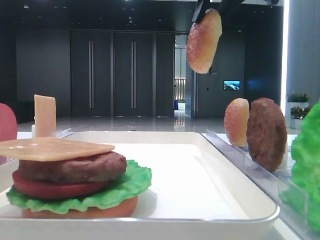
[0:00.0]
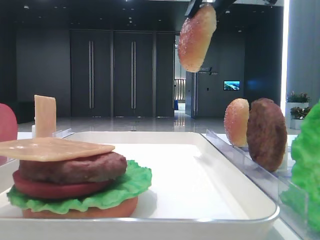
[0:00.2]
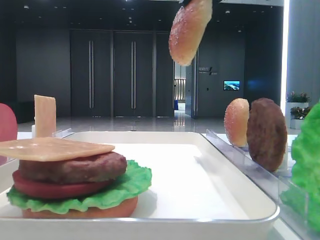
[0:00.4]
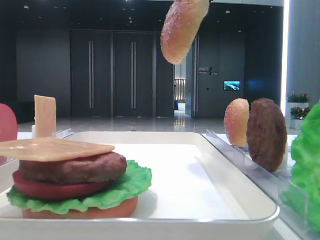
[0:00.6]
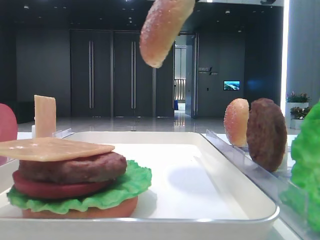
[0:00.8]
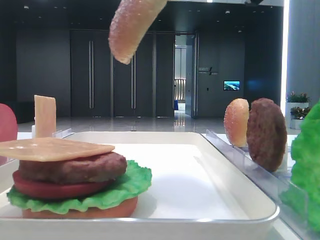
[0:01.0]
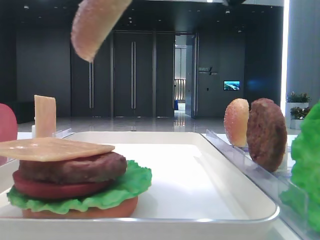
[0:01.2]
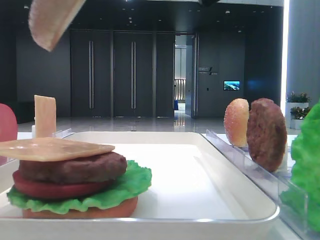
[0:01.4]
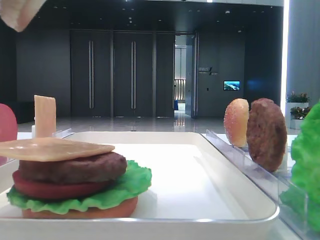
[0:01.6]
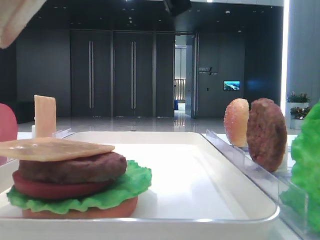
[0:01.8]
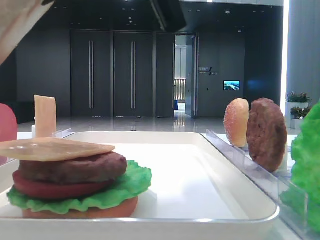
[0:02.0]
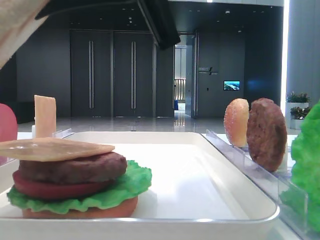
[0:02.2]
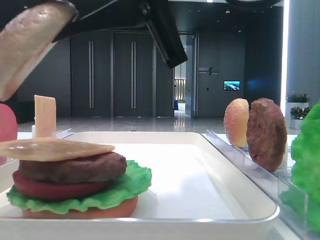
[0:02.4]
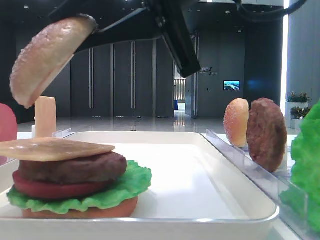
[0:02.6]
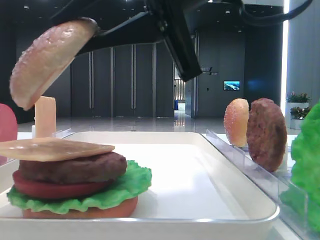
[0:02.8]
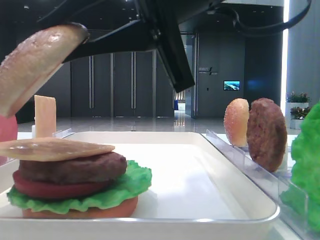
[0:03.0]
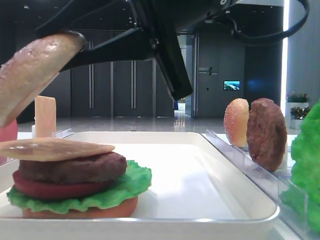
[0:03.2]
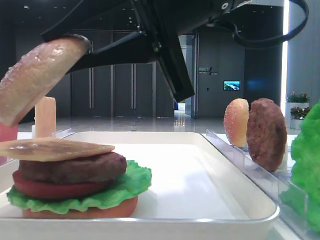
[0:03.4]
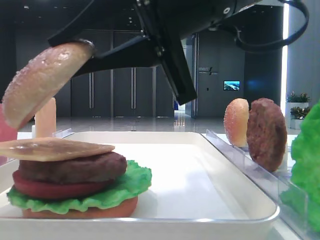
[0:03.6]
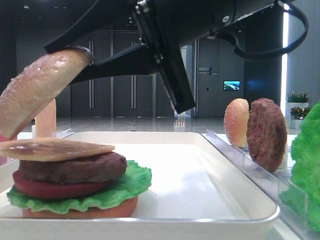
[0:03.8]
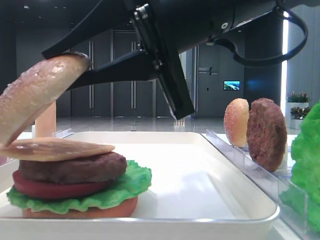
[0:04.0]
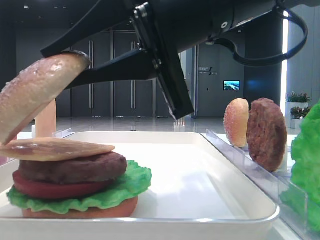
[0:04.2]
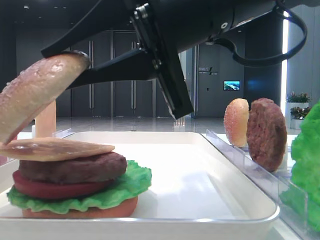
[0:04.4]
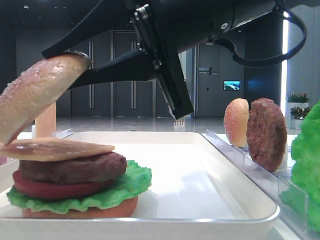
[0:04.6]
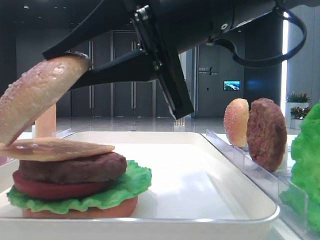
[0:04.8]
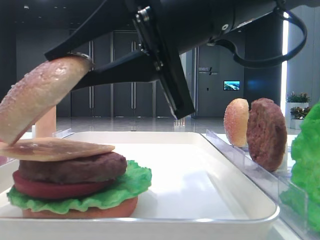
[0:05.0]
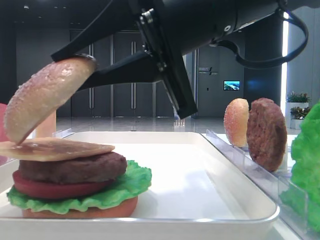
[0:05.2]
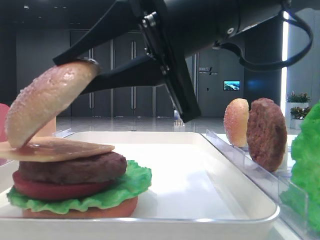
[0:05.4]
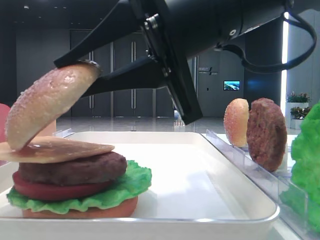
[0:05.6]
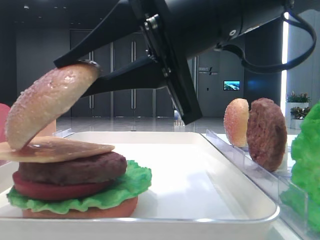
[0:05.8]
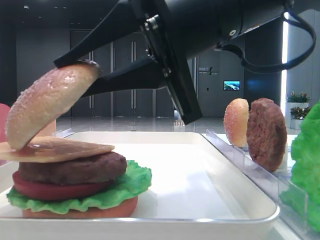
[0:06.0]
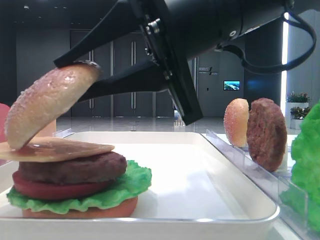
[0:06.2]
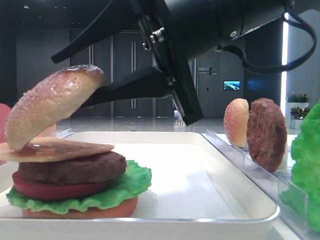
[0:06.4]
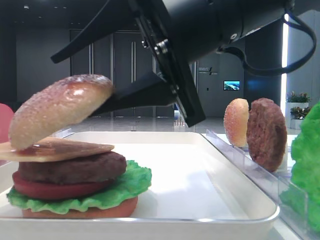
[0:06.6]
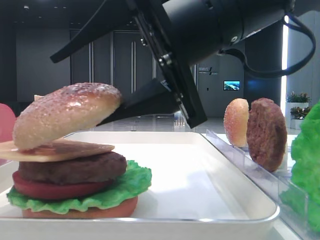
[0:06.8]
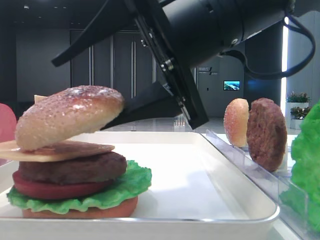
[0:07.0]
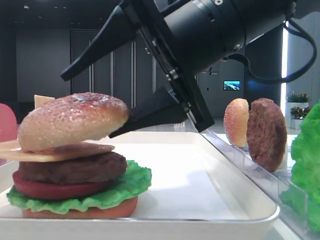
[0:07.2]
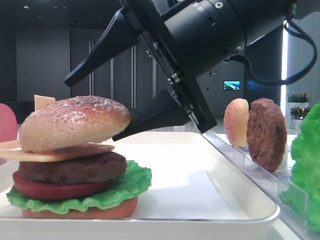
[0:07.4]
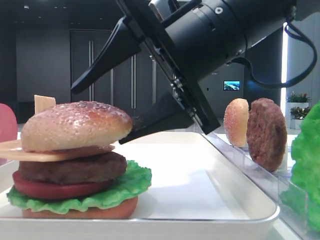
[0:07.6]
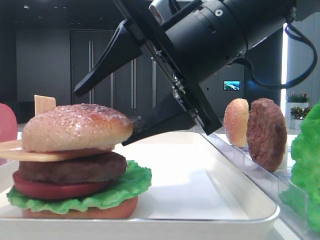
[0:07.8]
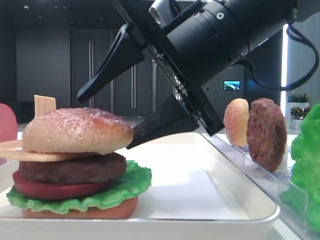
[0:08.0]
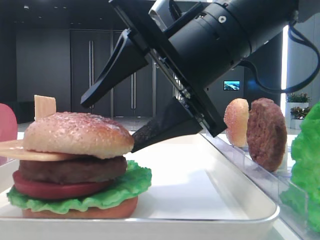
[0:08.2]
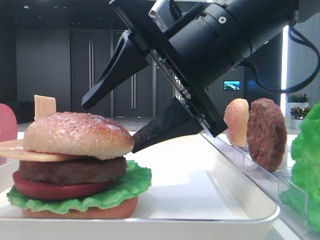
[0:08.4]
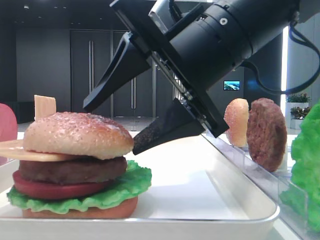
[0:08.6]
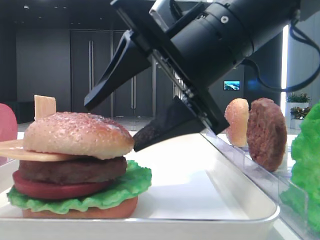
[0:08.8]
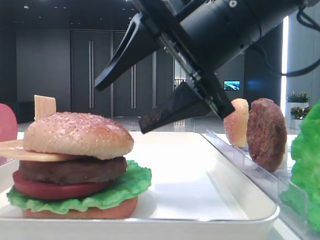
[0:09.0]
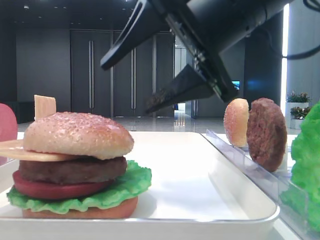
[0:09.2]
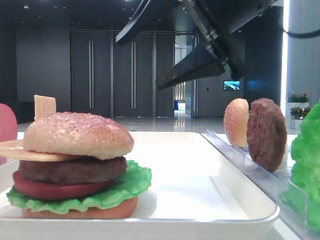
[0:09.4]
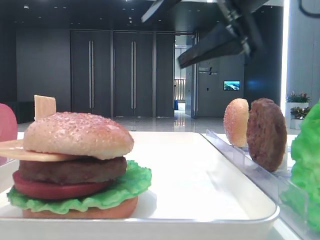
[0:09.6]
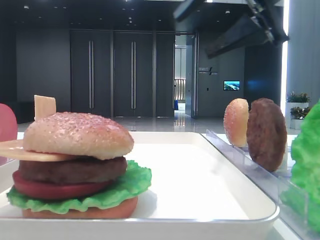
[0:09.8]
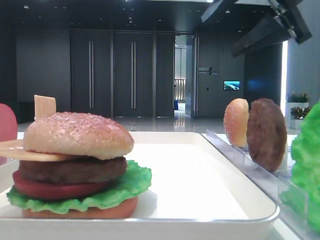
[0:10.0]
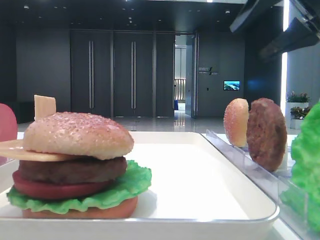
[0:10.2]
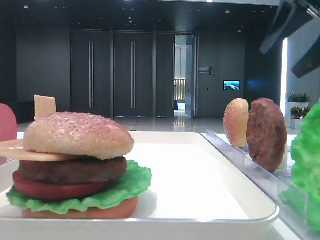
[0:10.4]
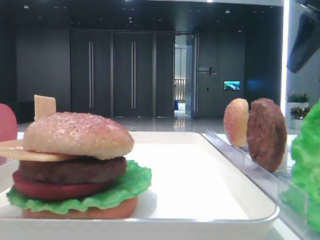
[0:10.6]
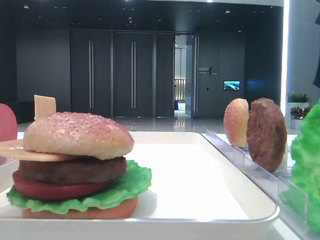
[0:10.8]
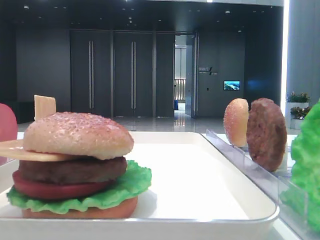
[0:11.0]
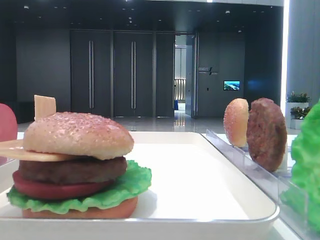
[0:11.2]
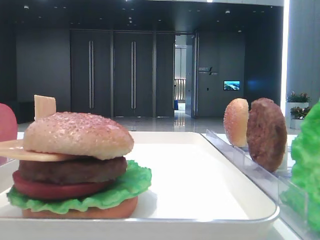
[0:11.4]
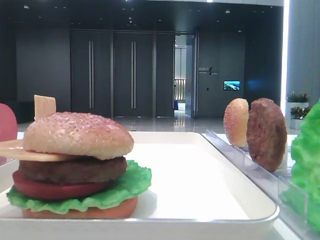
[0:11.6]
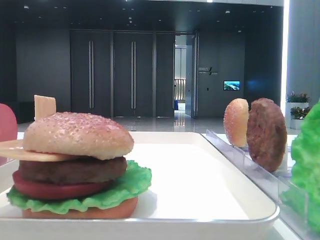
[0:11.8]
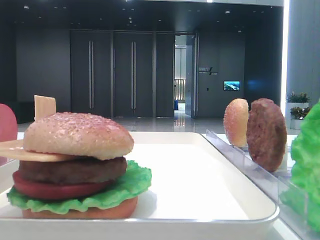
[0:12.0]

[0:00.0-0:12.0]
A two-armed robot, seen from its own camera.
Step, 0.0 to 8.6 s: Place the top bread slice on the cheese with the right hand.
0.0 to 1.6 s: The right gripper is displaced backward and to the left by approximately 15 cm.
1.6 to 3.0 s: The right gripper shifts some 5 cm downward.
3.0 to 4.4 s: The grippers stay close to where they were, moving slightly.
4.4 to 6.0 s: Neither gripper changes place.
6.0 to 7.6 s: The right gripper opens.
7.6 to 9.0 s: The grippers stay close to where they were, moving slightly.
9.0 to 10.4 s: The right gripper travels to the right and upward by about 20 cm.
10.4 to 12.0 s: The right gripper is displaced backward and upward by about 15 cm.

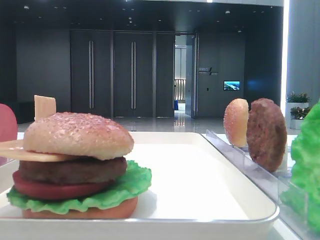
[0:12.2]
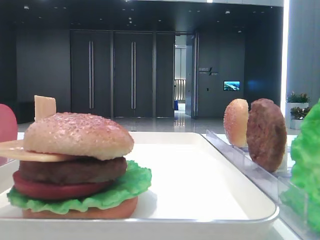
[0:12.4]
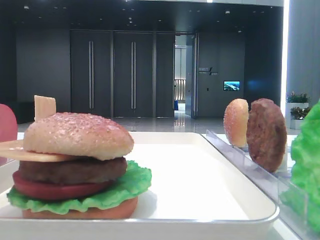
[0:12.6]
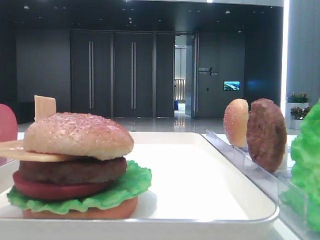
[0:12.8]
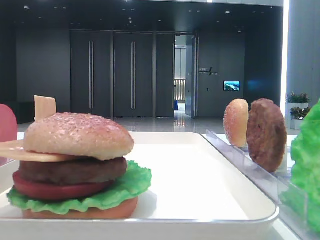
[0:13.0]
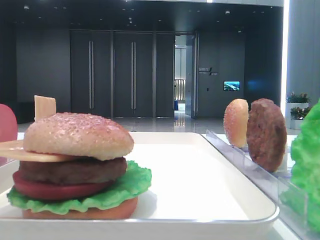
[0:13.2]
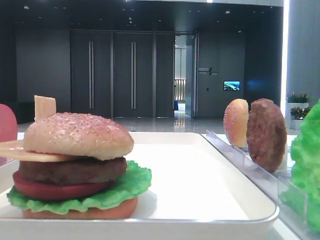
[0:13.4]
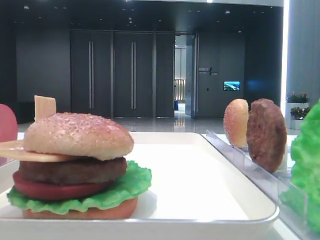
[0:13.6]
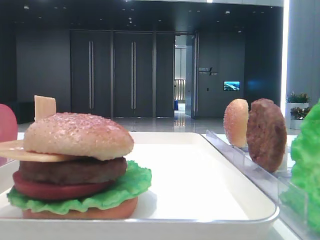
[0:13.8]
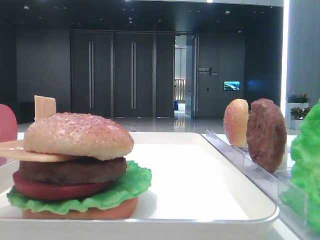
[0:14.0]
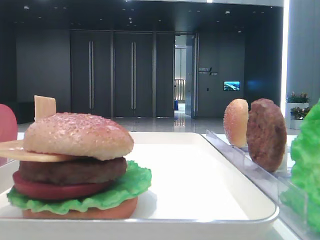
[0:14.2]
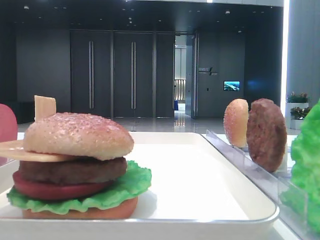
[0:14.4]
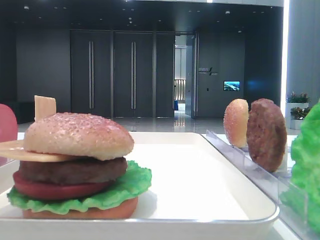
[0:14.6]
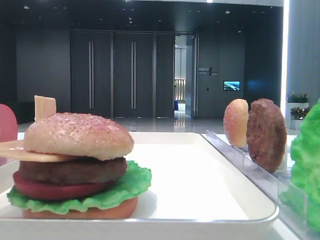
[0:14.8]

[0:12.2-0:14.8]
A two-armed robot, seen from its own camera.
13.4 to 14.8 s: Both grippers stay put.

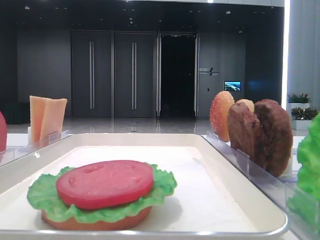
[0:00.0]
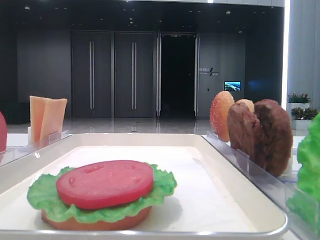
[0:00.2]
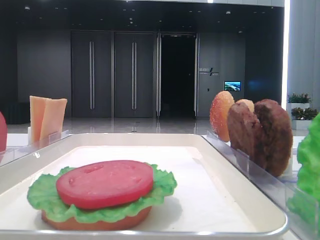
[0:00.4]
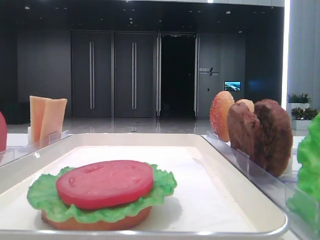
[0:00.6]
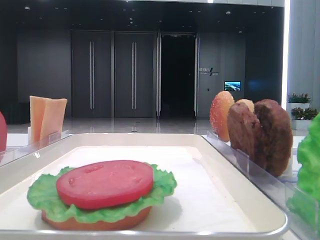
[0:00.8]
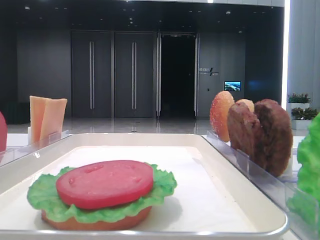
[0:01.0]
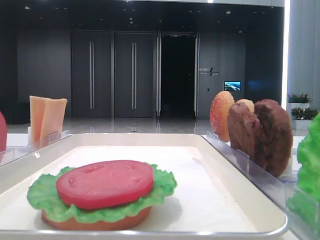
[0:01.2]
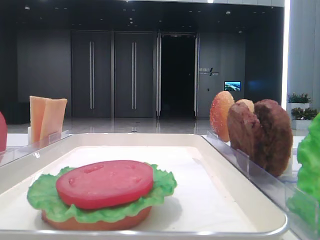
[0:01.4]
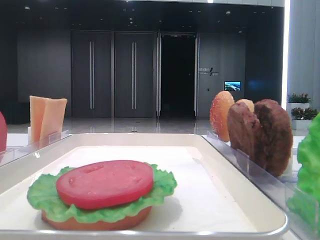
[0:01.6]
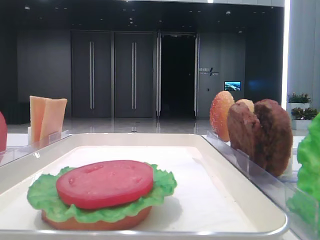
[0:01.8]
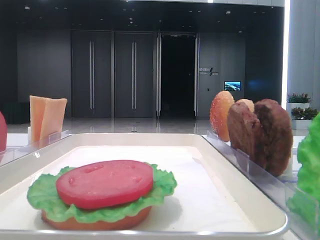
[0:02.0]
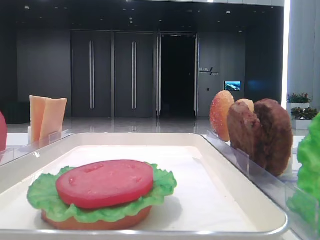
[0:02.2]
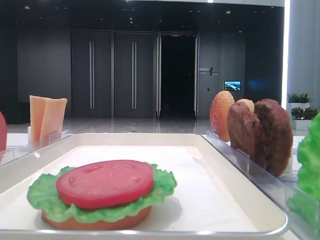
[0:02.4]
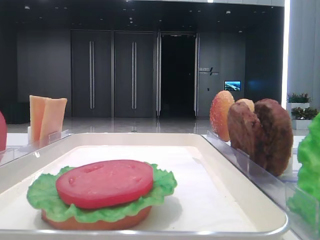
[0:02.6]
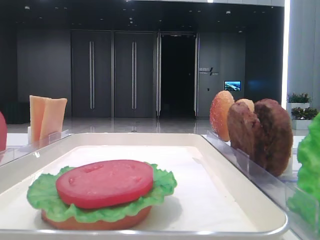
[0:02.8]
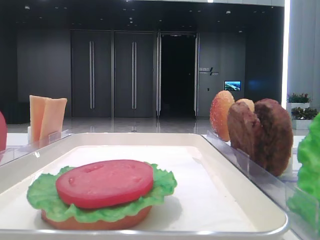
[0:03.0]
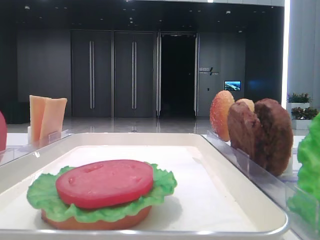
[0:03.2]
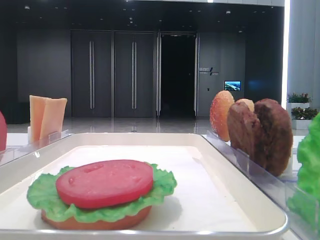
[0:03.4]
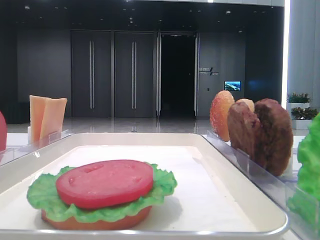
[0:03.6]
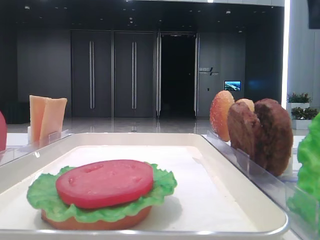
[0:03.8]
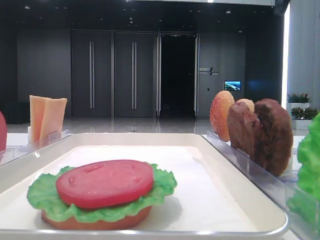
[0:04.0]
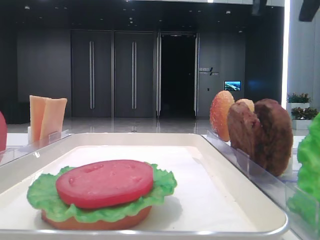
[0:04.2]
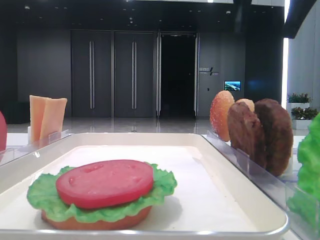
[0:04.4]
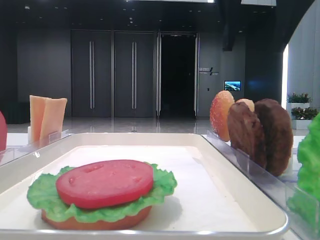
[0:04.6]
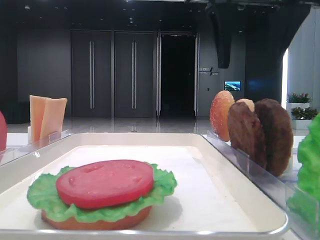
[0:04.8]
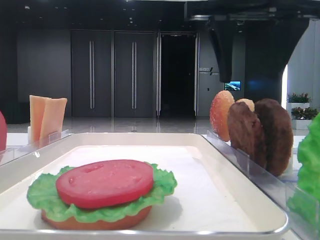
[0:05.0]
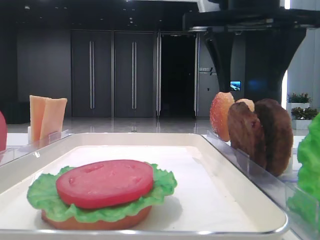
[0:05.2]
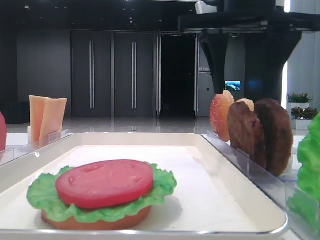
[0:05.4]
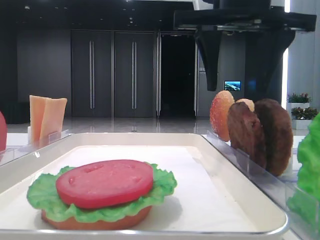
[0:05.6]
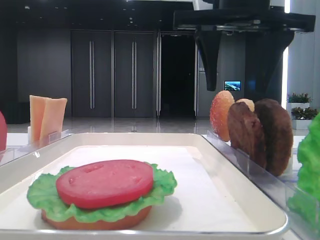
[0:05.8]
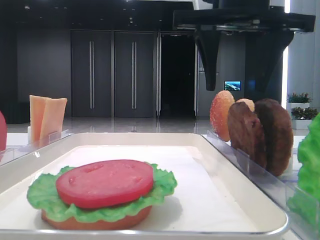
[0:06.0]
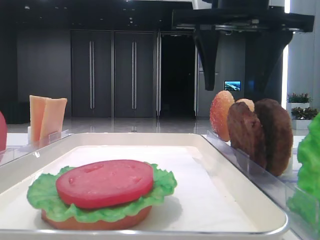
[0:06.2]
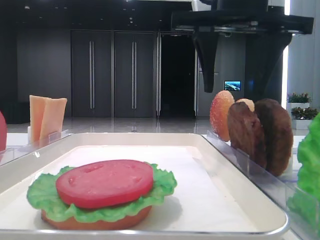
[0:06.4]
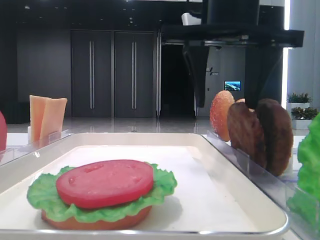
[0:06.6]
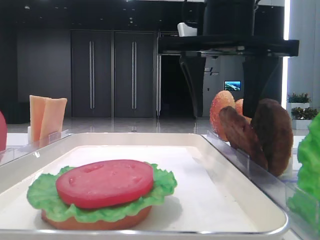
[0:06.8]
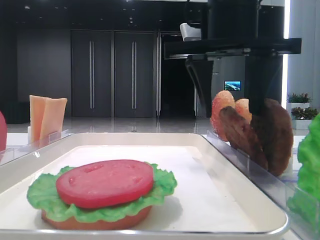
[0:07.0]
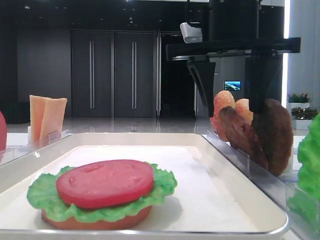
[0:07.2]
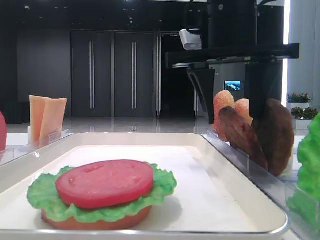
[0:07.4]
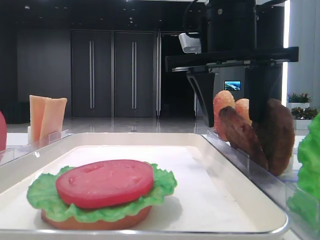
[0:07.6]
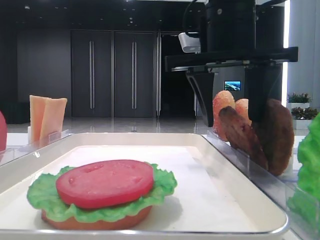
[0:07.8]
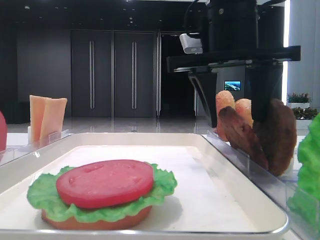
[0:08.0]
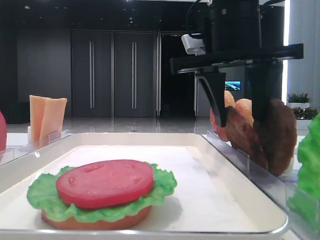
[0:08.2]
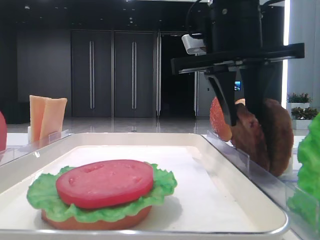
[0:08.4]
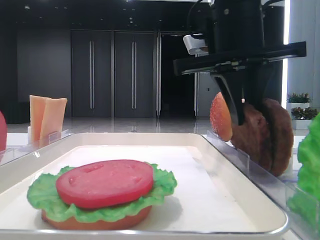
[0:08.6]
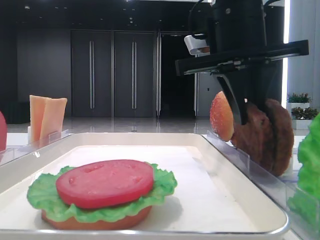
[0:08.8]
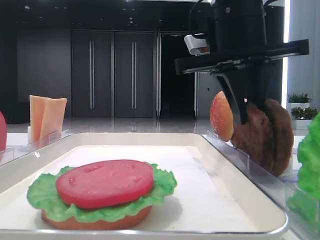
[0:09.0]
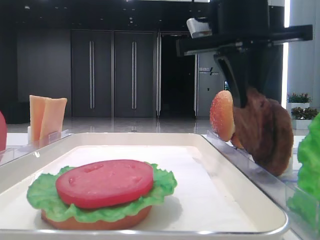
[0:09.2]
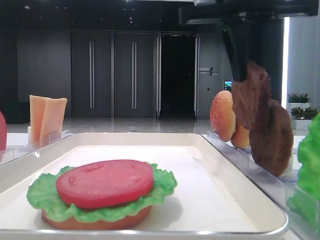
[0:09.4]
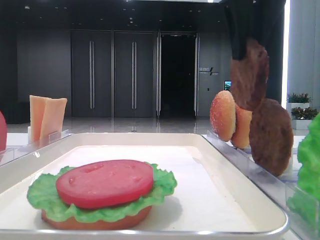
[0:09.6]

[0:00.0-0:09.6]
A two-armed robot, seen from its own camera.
Step, 0.0 to 8.8 s: Grab the patty with the right hand.
1.6 to 3.2 s: The right gripper goes approximately 30 cm forward.
3.2 to 4.8 s: The right gripper shifts approximately 20 cm to the left.
4.8 to 6.4 s: The grippers move only a little.
6.4 to 8.0 s: The grippers stay close to where they were, moving slightly.
8.0 to 9.6 s: The right gripper goes some 5 cm upward, and closes its fingers.
